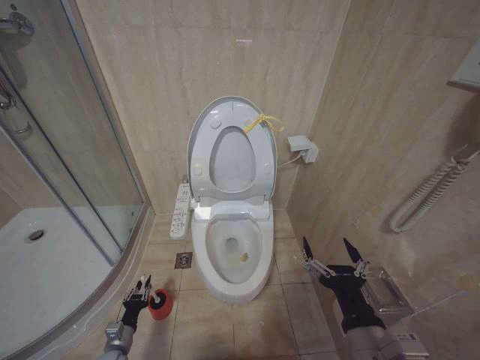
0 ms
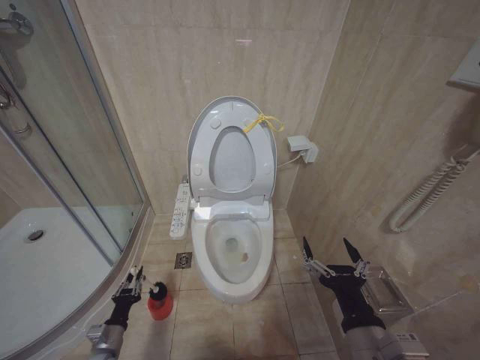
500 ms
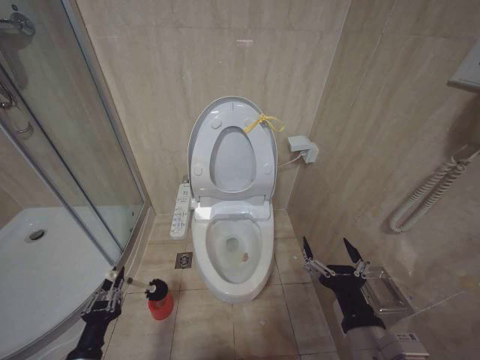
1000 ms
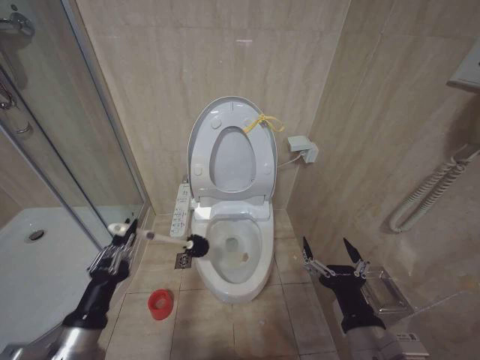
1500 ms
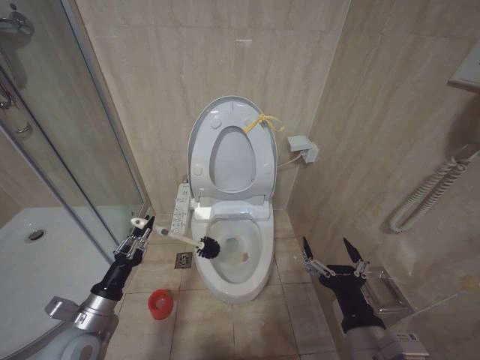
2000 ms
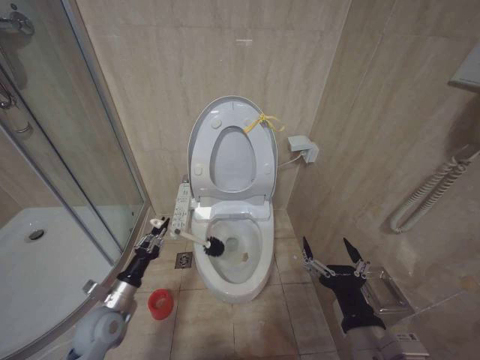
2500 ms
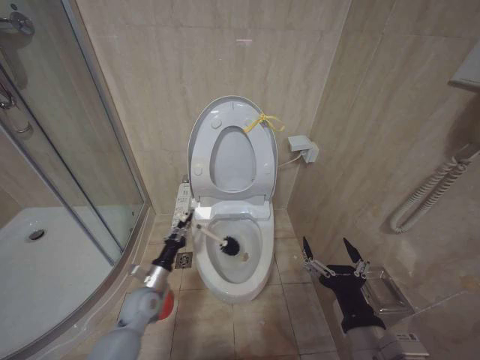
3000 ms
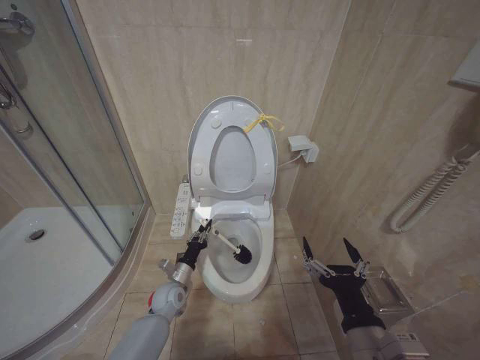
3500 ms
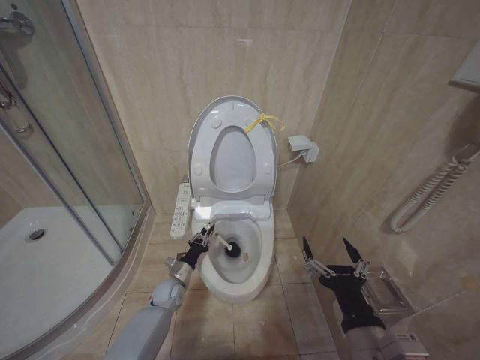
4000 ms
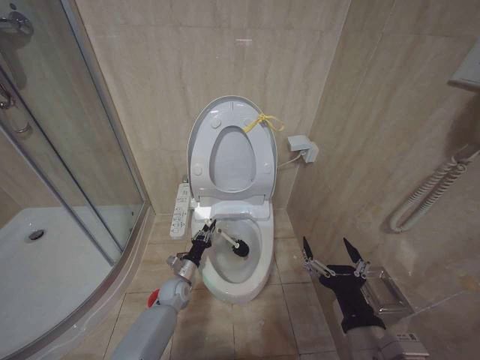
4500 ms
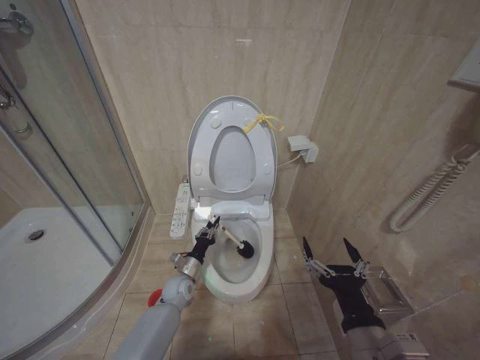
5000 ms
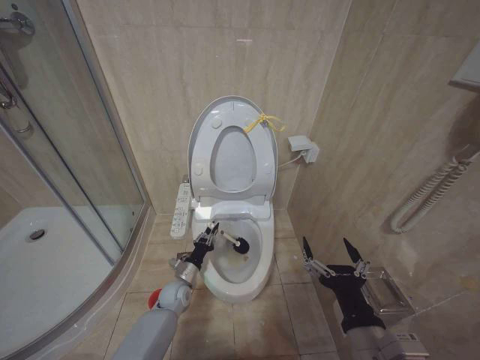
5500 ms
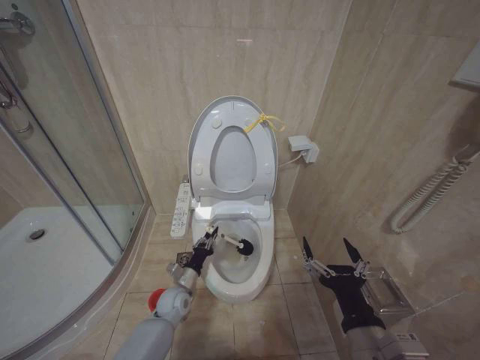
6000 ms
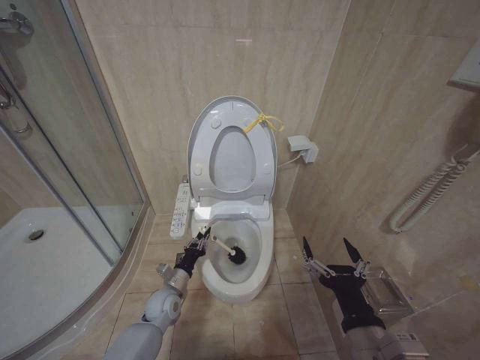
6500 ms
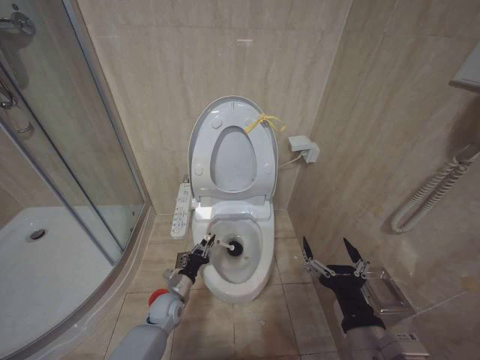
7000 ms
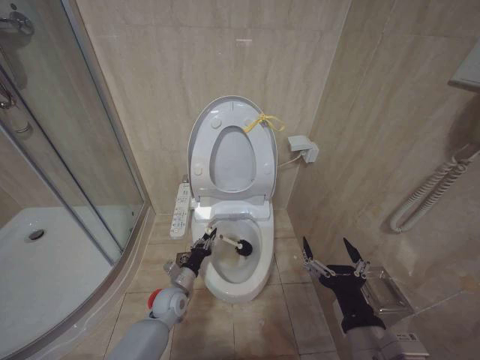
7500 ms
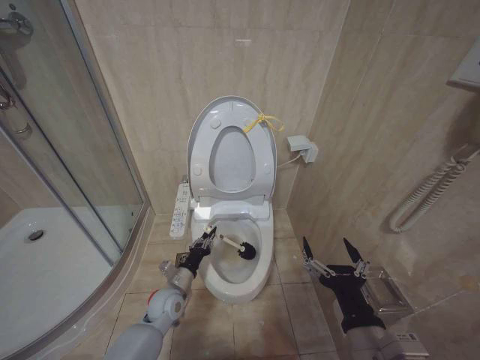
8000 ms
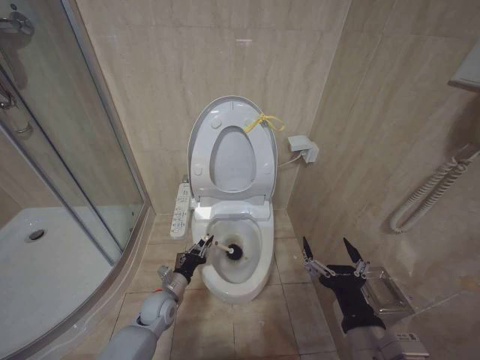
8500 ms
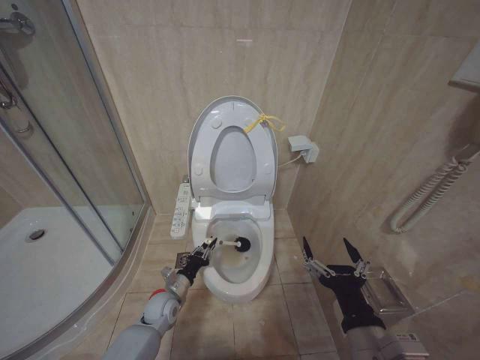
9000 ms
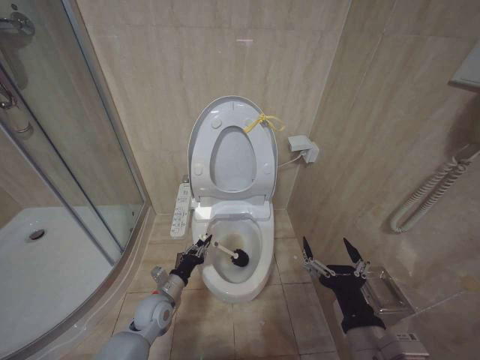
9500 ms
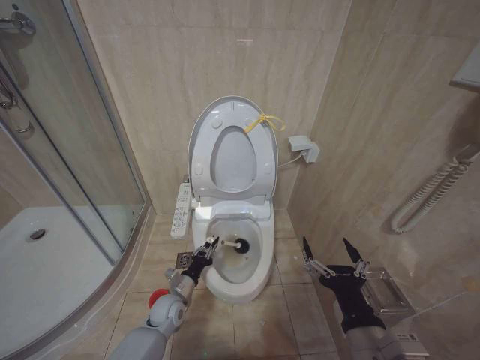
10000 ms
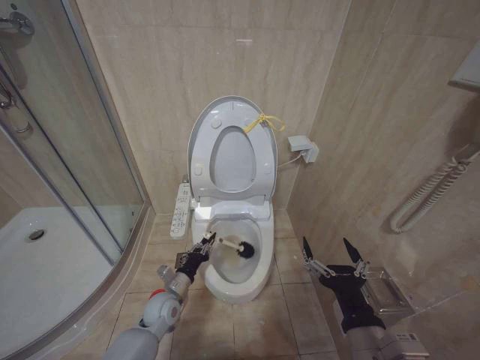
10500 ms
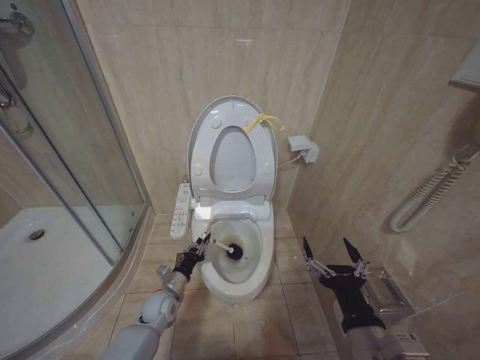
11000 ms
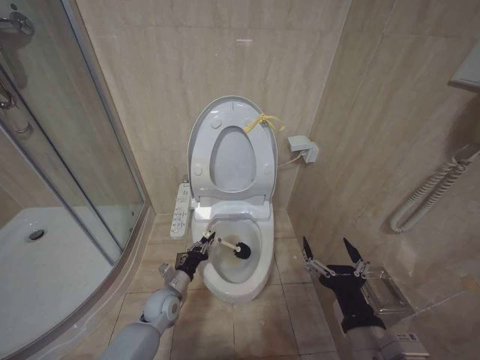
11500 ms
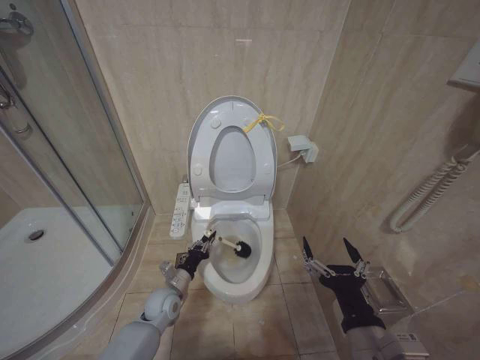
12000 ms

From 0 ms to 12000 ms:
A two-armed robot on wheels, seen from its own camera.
Task of the whole recording: Open the toilet lid, clean the toilet bowl with a toilet brush, close the toilet lid, and flush.
From 0 ms to 2000 ms: The left gripper heads upward, covering some 25 cm.
From 2000 ms to 4000 ms: The left gripper heads forward, downward and to the right, covering approximately 30 cm.
From 4000 ms to 6000 ms: The left gripper changes place by about 5 cm.
From 6000 ms to 8000 ms: The grippers make only small movements.
From 8000 ms to 12000 ms: The grippers stay close to where they were, moving slightly.

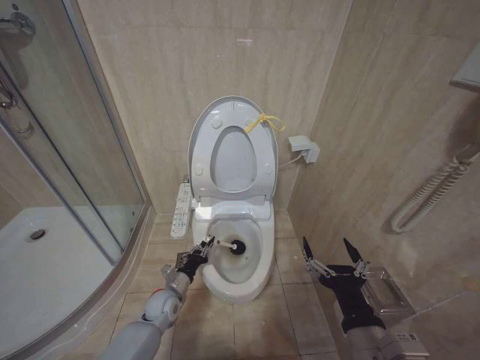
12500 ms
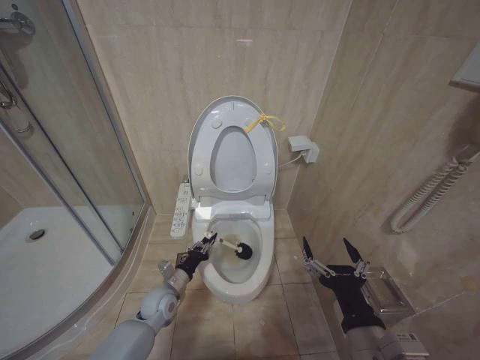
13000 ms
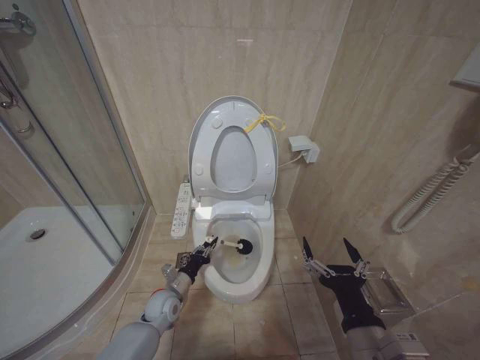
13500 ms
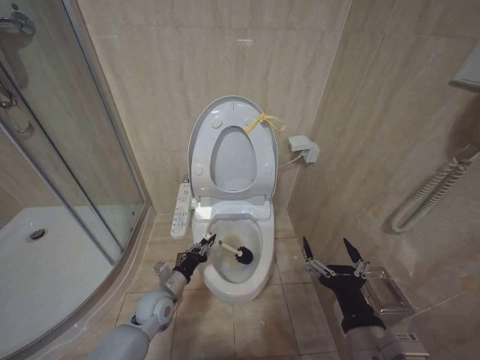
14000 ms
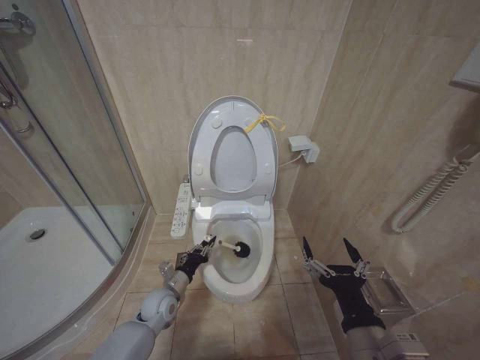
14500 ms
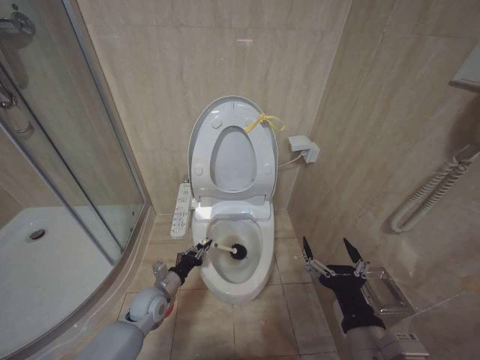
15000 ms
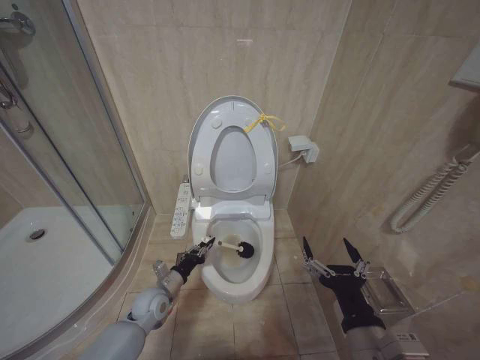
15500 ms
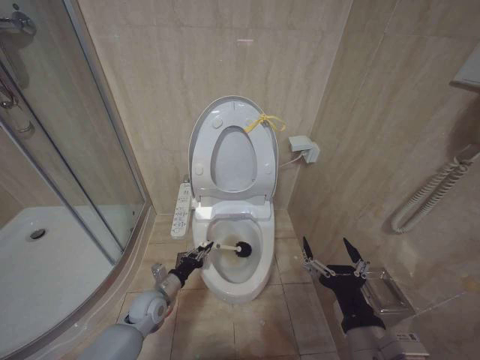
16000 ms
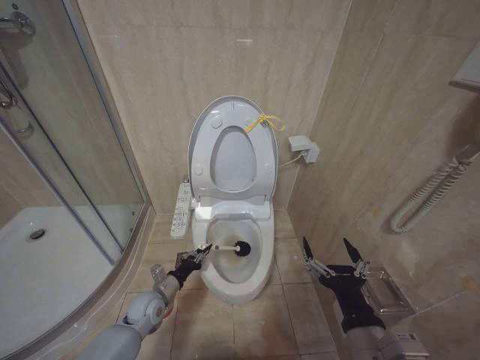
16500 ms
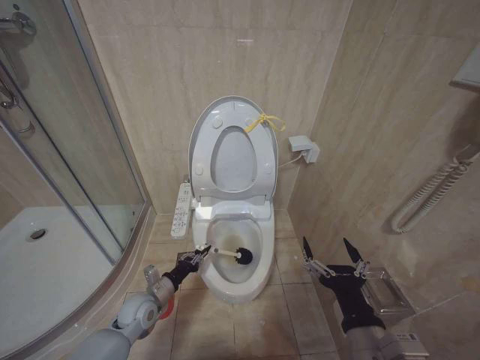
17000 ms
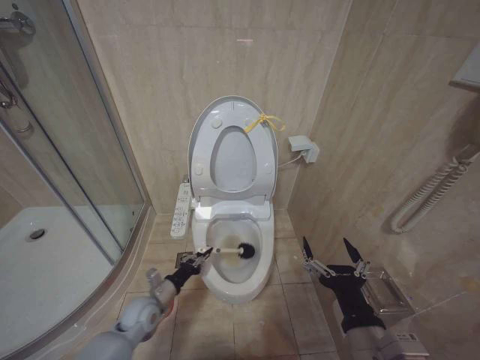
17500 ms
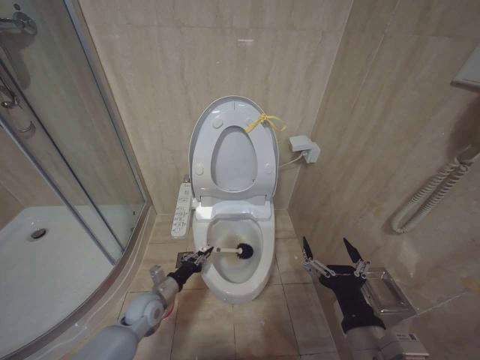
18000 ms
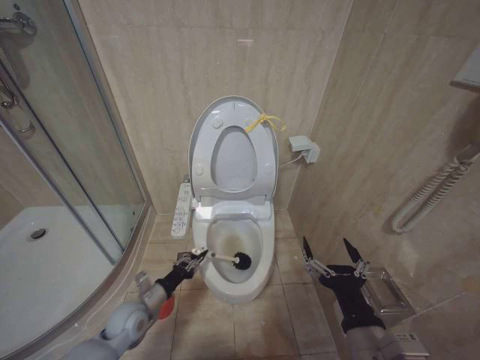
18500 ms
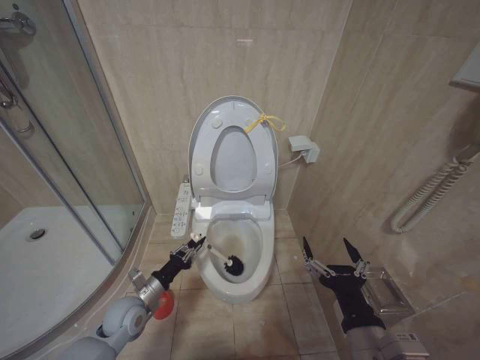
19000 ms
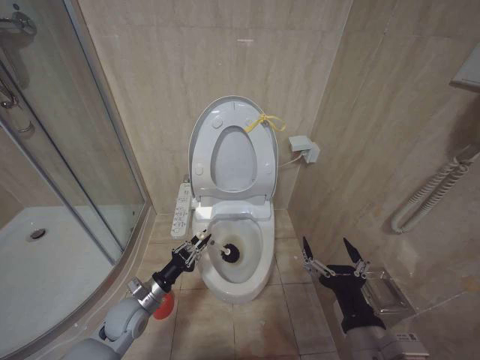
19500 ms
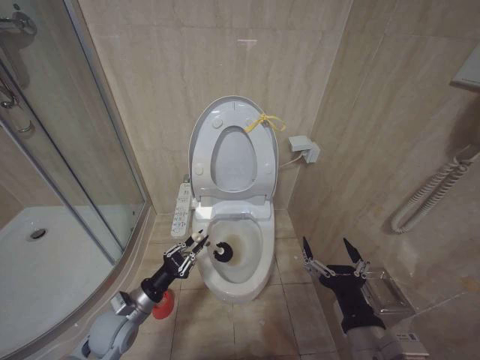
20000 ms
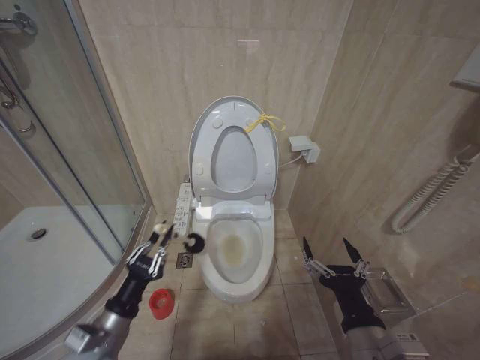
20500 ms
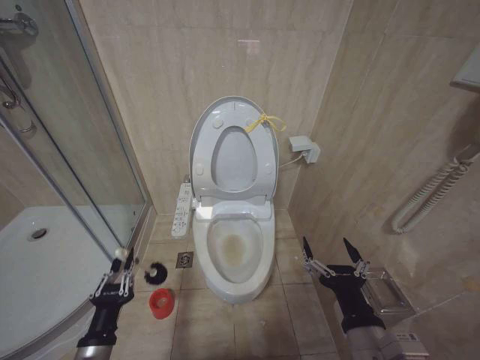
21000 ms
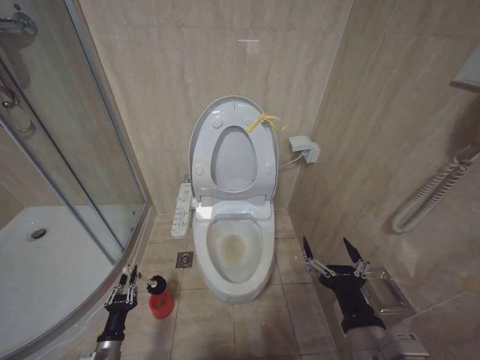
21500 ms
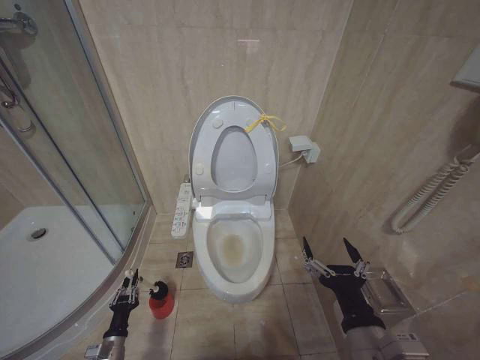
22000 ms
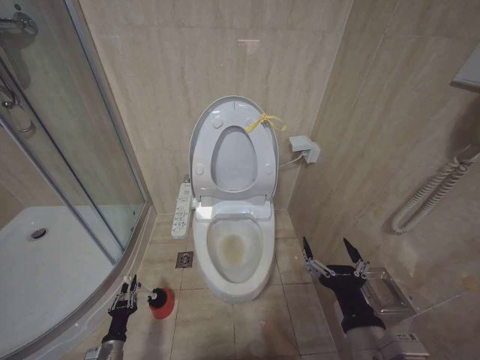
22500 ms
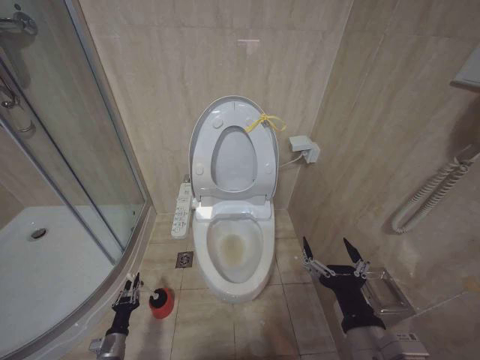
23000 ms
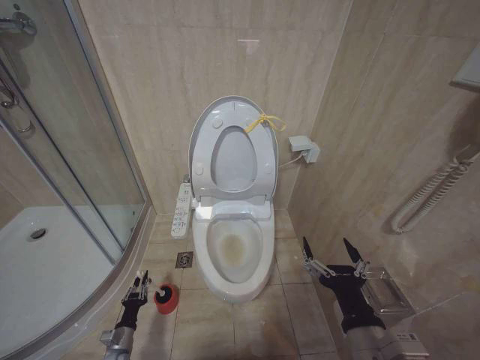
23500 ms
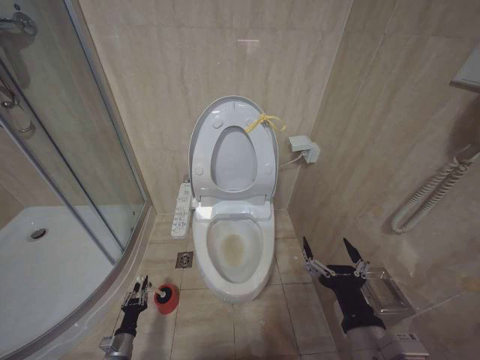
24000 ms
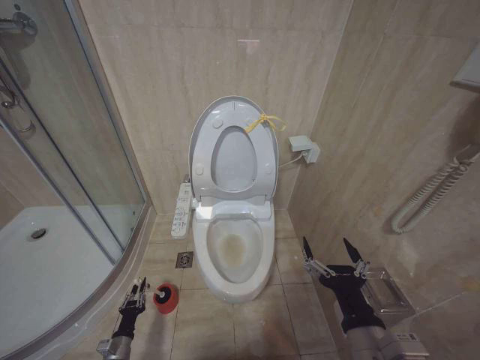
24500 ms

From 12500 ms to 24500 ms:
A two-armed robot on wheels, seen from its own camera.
Task of the whole recording: Open the toilet lid, clean the toilet bowl with a toilet brush, close the toilet lid, and flush.
From 14500 ms to 16500 ms: The grippers stay close to where they were, moving slightly.
From 16500 ms to 18500 ms: The grippers make only small movements.
From 18500 ms to 20500 ms: The left gripper is displaced backward and upward by about 15 cm.
From 20500 ms to 22500 ms: The left gripper moves downward, about 30 cm.
From 22500 ms to 24500 ms: The grippers make only small movements.

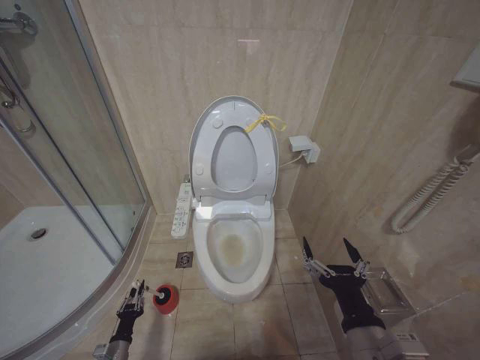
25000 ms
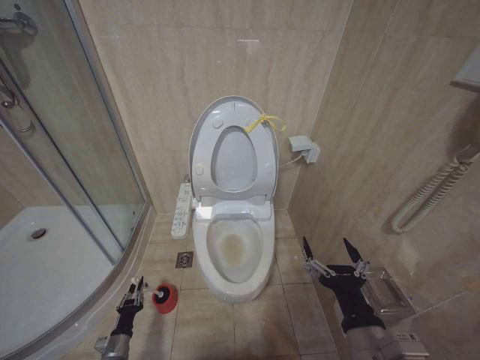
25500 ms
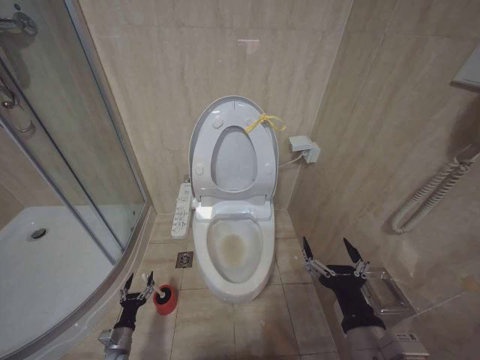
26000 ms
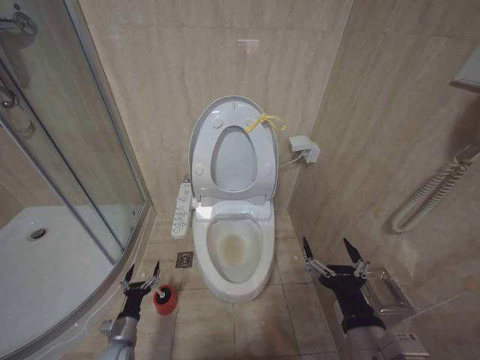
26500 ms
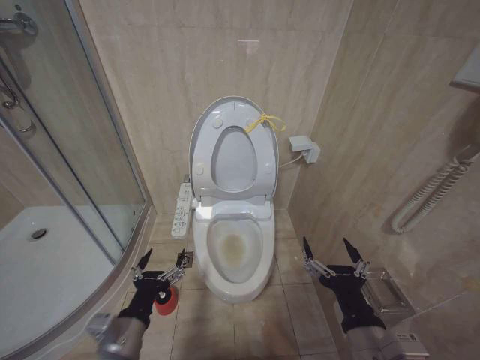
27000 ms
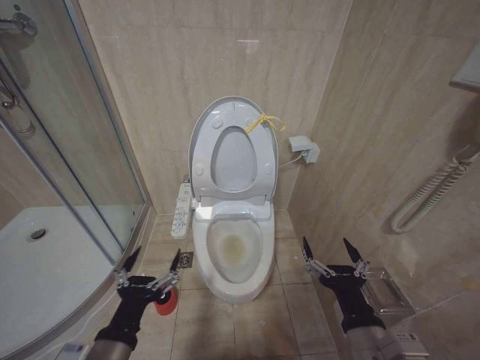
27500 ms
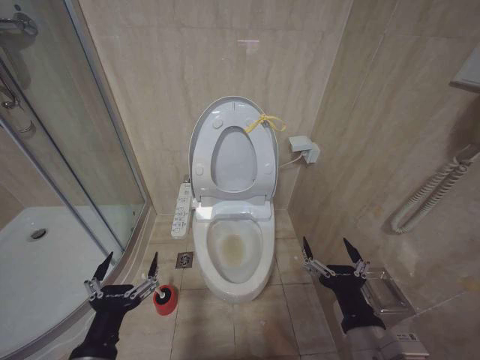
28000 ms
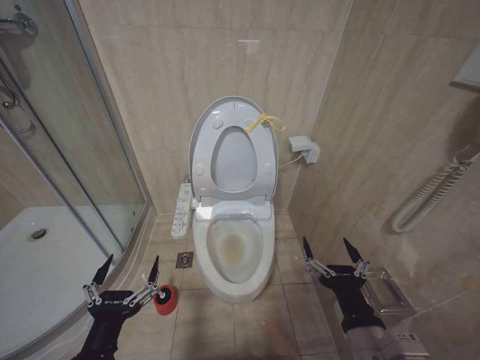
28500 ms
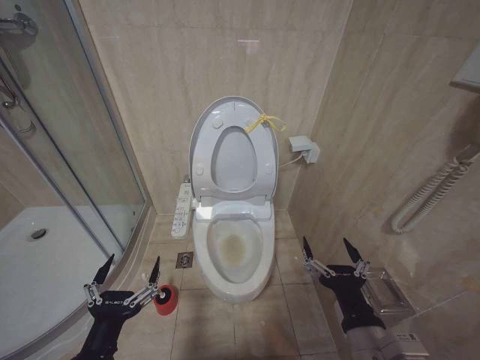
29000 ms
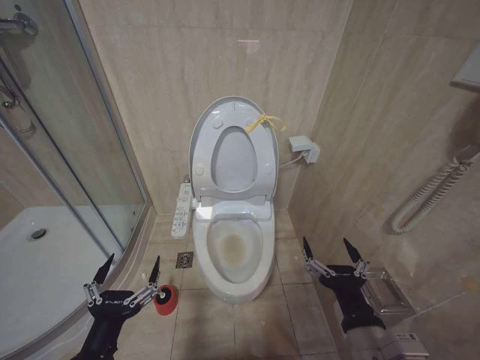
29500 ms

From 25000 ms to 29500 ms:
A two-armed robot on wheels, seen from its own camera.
Task of the whole recording: Open the toilet lid, clean the toilet bowl with a toilet brush, close the toilet lid, and flush.
From 25000 ms to 27000 ms: The left gripper goes roughly 35 cm upward and to the right, and opens.
From 27000 ms to 29500 ms: The left gripper goes about 10 cm backward and upward.
